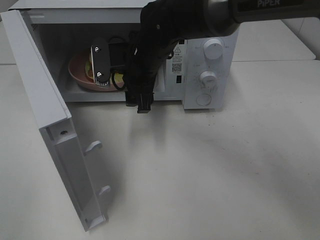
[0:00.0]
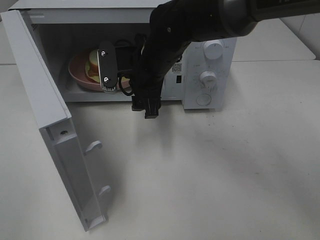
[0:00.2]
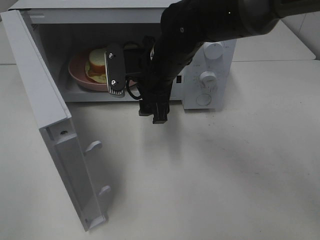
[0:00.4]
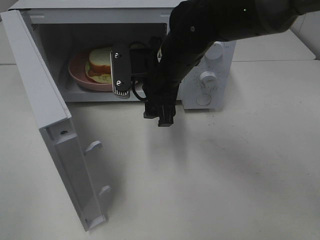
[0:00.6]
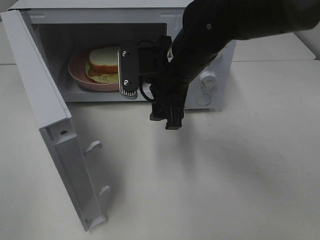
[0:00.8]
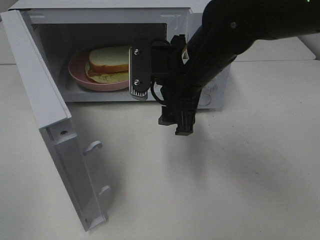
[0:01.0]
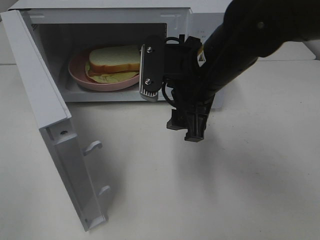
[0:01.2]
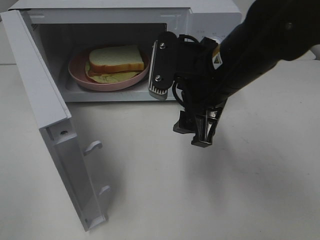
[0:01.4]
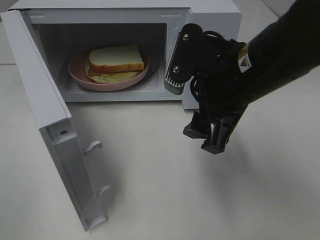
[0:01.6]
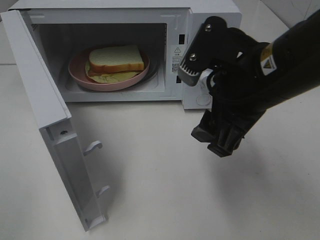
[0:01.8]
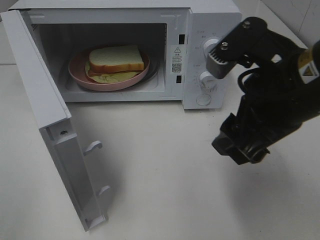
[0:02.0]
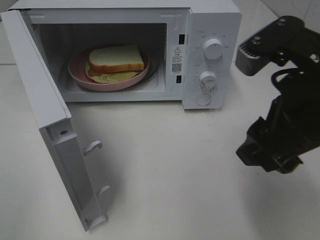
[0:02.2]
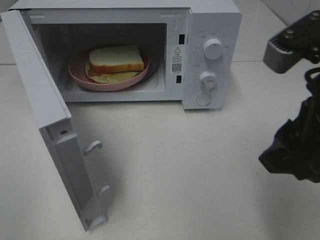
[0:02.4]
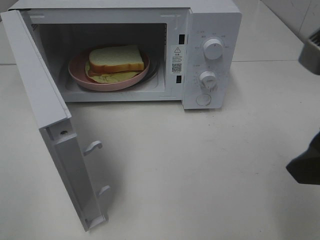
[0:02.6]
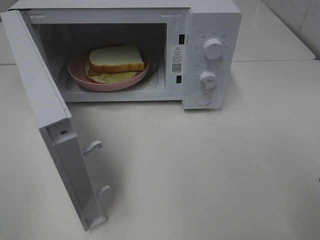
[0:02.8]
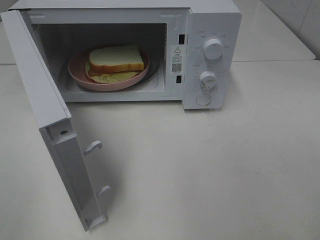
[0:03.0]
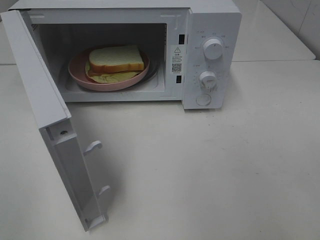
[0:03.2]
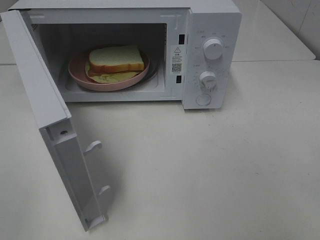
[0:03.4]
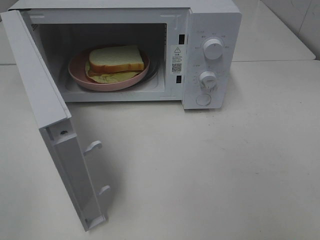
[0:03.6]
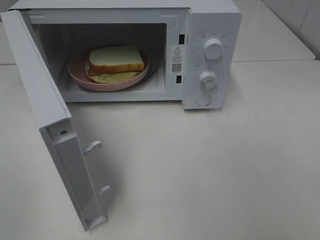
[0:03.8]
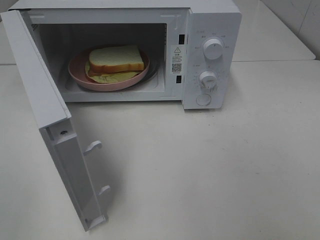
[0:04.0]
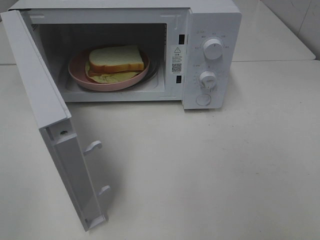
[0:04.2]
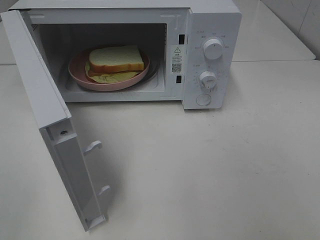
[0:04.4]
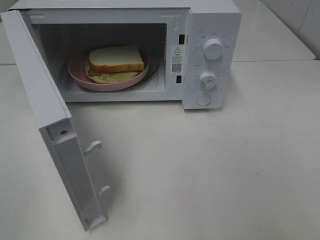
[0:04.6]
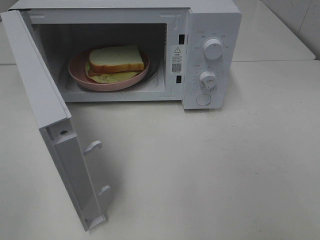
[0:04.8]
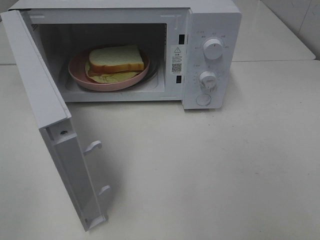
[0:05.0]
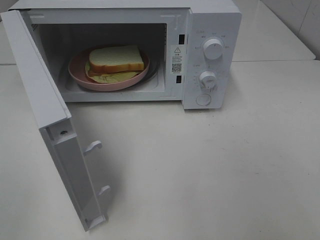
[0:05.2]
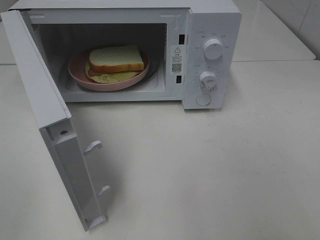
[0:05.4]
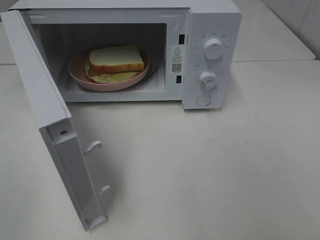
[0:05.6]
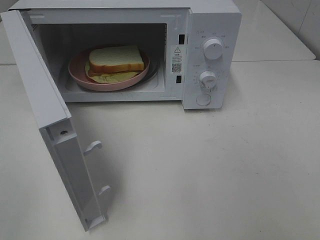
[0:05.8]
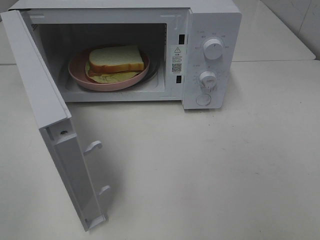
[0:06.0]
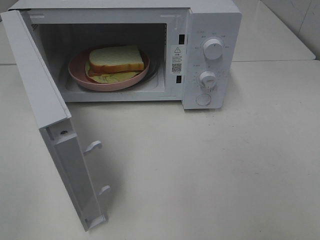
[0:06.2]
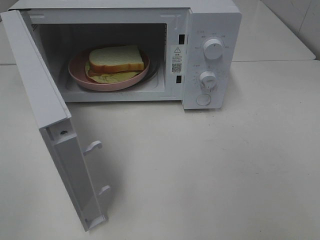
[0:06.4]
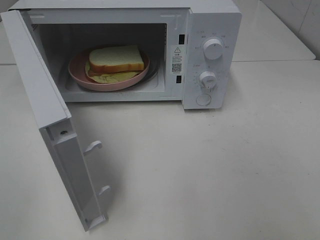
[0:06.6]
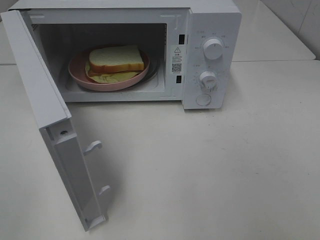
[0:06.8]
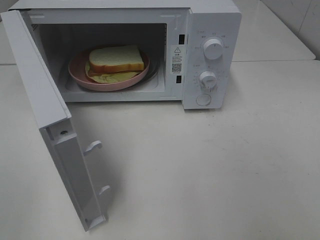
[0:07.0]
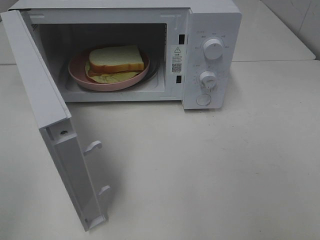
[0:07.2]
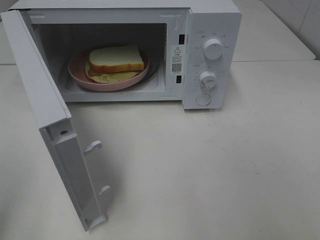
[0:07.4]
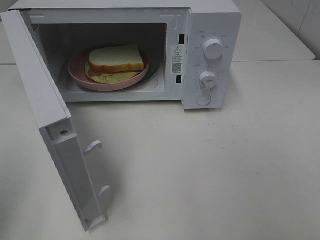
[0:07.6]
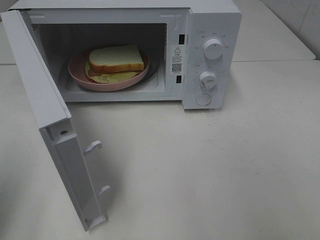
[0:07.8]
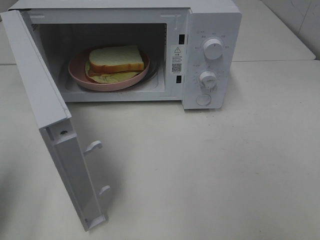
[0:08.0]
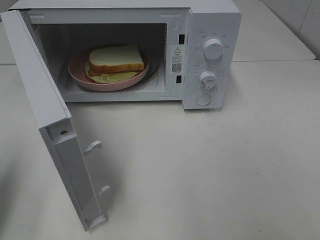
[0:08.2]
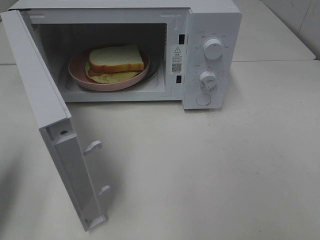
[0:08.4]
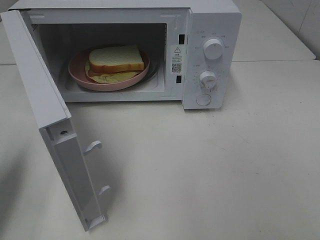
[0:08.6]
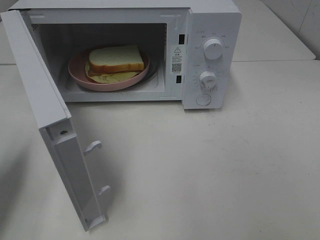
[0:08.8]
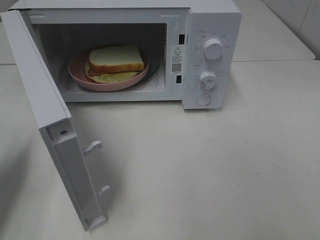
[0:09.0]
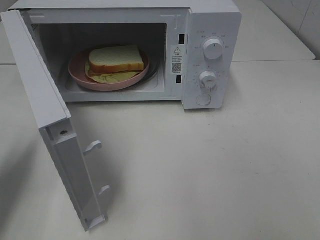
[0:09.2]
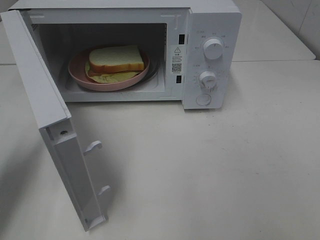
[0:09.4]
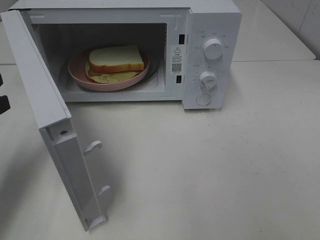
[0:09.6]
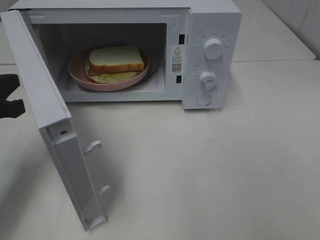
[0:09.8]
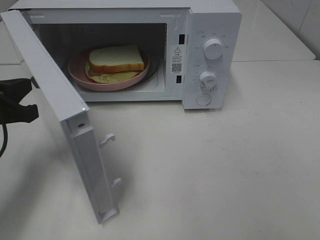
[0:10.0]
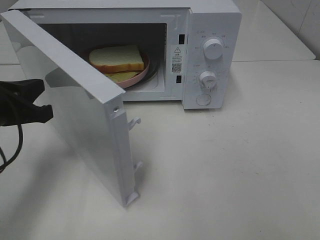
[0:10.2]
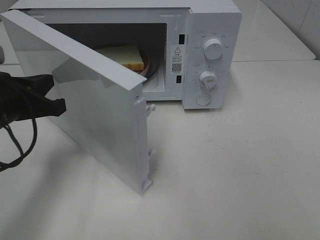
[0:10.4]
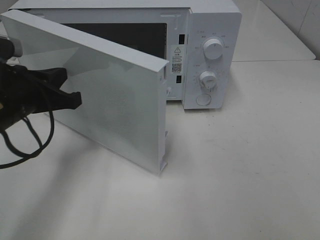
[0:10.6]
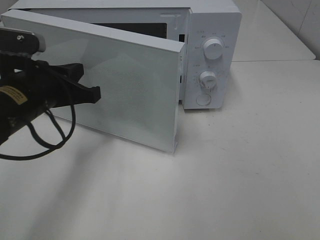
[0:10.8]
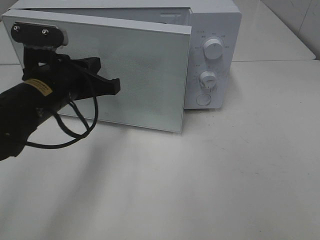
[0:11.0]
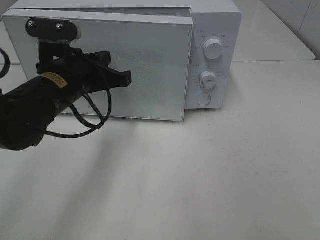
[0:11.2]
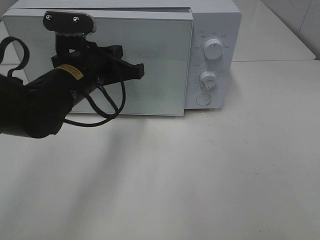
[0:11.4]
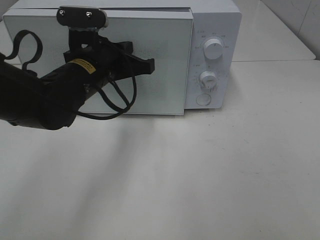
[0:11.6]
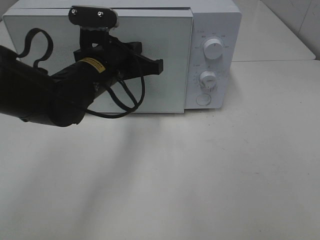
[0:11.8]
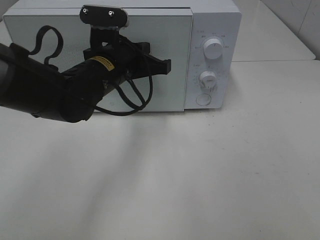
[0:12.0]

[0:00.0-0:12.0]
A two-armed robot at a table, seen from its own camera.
Task of the whole recording: Heat Sandwich.
0:00.0 to 0:01.6: The right gripper goes approximately 20 cm backward, to the right and upward.
0:01.6 to 0:03.0: The right gripper shifts about 20 cm backward, to the right and upward.
0:04.4 to 0:06.0: Neither gripper changes place.
0:07.6 to 0:09.0: The left gripper travels forward and downward by approximately 15 cm.
0:09.0 to 0:10.4: The left gripper travels to the right by some 10 cm.
0:10.4 to 0:12.0: The left gripper moves to the right and forward, some 15 cm.

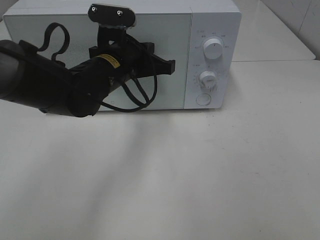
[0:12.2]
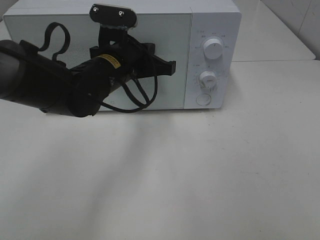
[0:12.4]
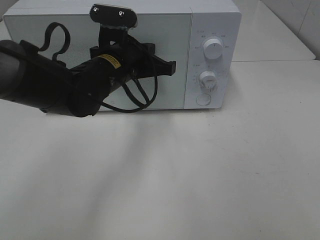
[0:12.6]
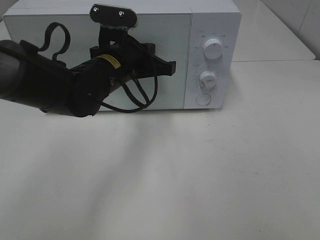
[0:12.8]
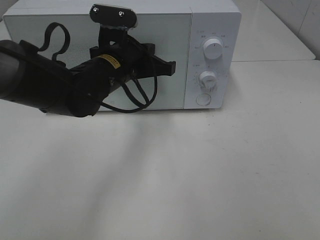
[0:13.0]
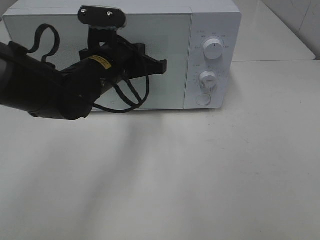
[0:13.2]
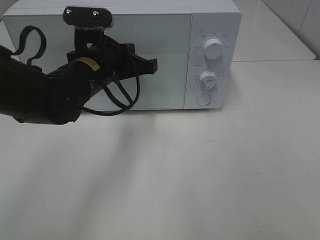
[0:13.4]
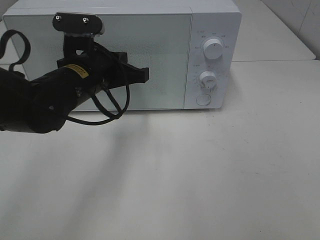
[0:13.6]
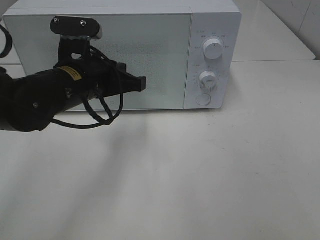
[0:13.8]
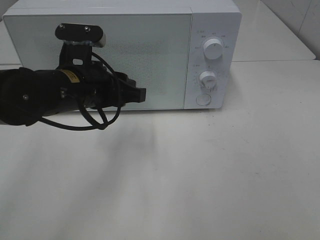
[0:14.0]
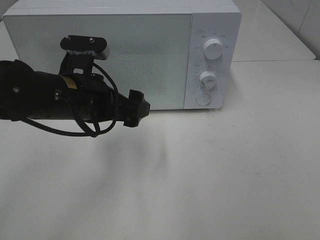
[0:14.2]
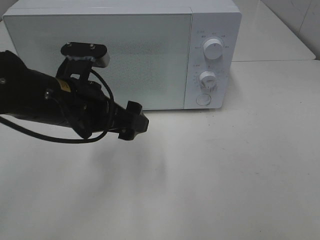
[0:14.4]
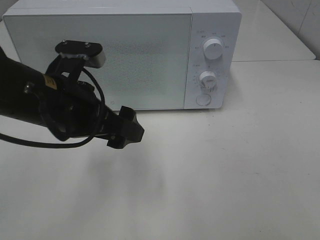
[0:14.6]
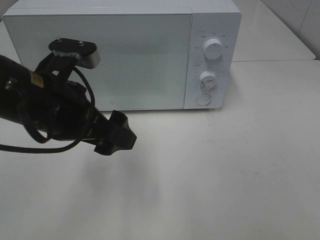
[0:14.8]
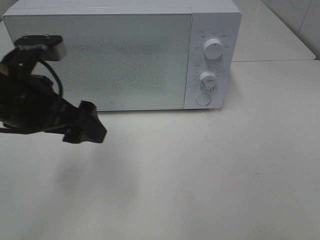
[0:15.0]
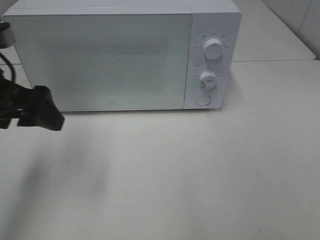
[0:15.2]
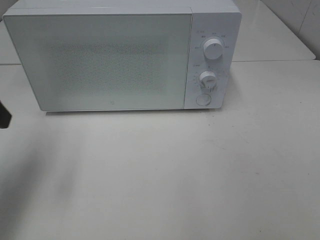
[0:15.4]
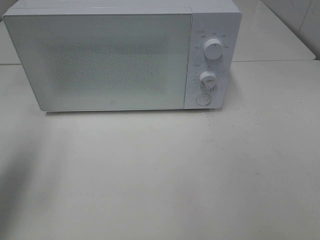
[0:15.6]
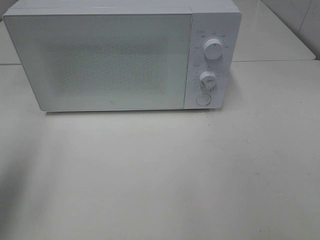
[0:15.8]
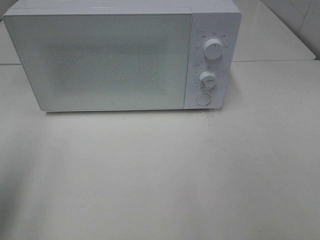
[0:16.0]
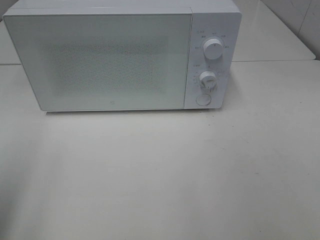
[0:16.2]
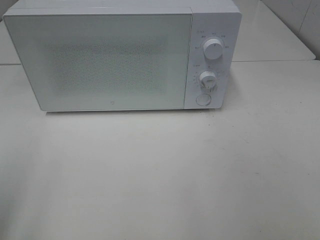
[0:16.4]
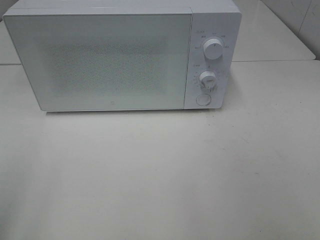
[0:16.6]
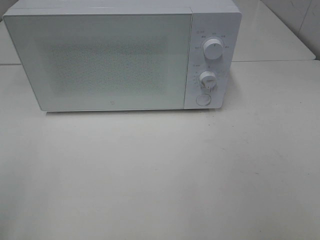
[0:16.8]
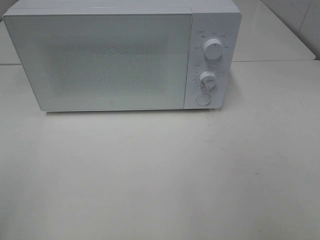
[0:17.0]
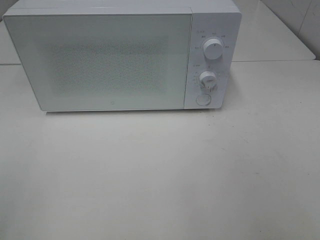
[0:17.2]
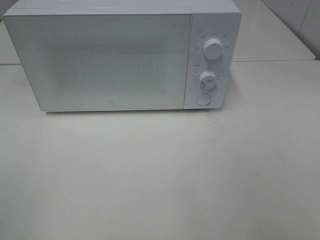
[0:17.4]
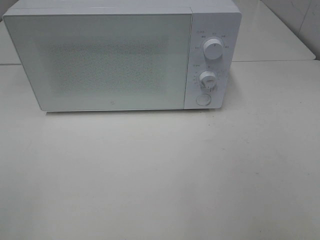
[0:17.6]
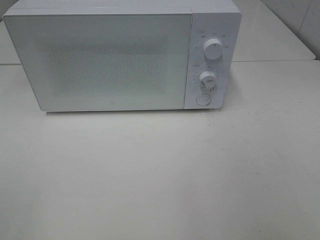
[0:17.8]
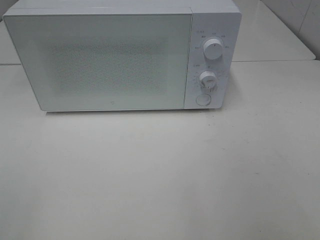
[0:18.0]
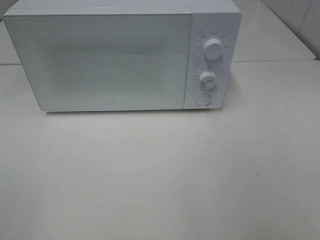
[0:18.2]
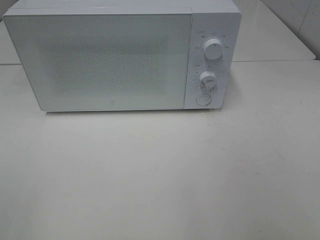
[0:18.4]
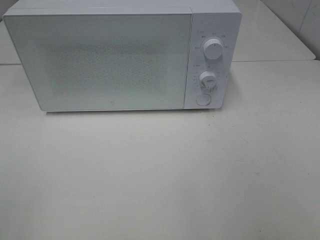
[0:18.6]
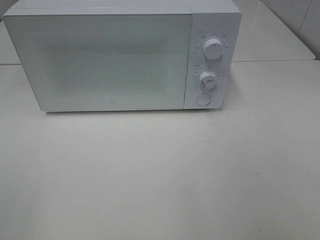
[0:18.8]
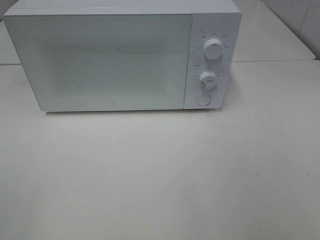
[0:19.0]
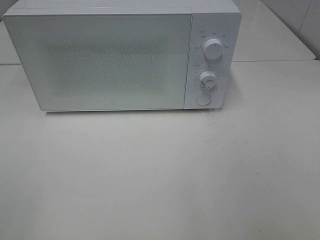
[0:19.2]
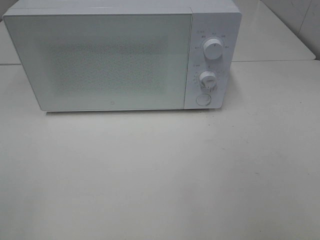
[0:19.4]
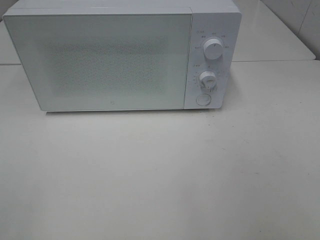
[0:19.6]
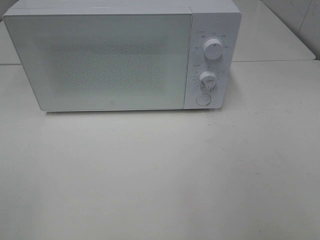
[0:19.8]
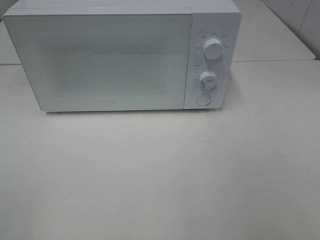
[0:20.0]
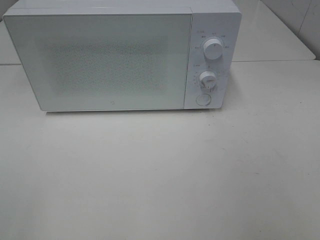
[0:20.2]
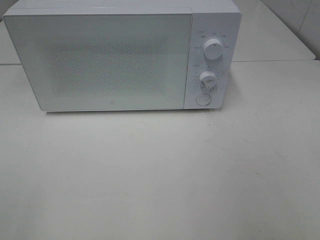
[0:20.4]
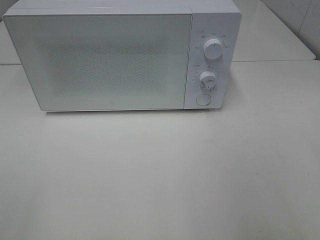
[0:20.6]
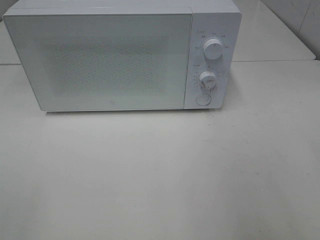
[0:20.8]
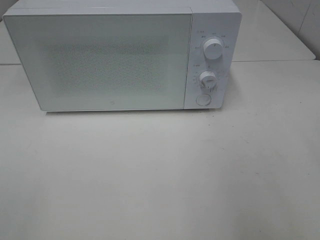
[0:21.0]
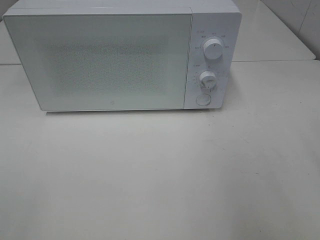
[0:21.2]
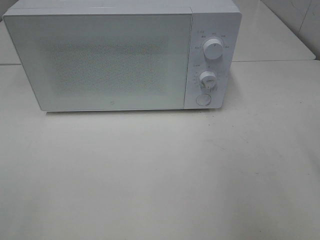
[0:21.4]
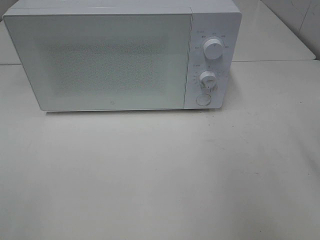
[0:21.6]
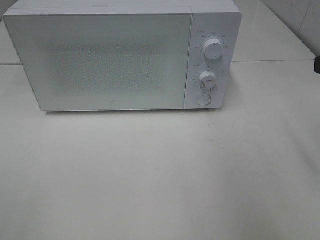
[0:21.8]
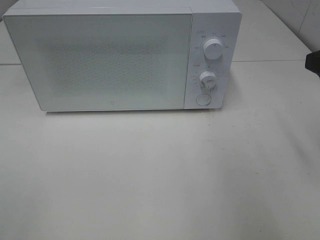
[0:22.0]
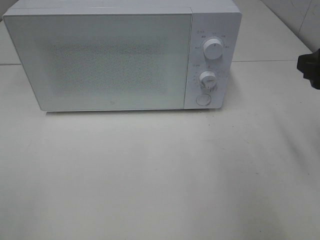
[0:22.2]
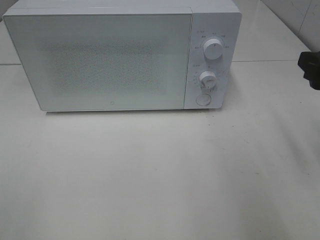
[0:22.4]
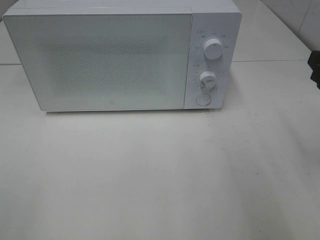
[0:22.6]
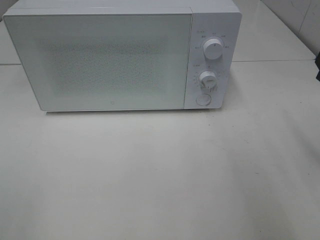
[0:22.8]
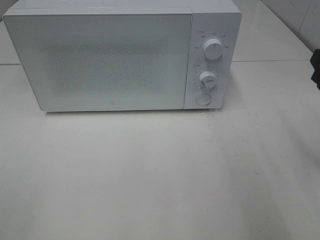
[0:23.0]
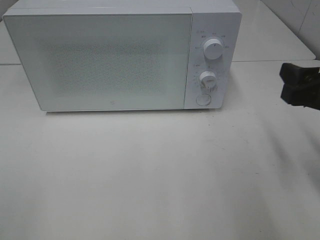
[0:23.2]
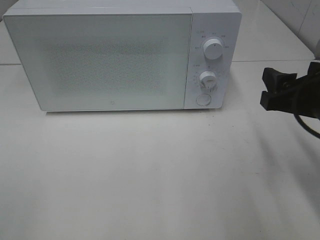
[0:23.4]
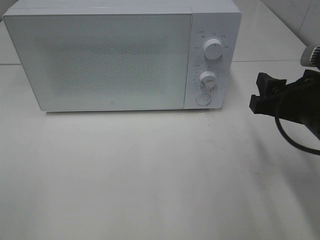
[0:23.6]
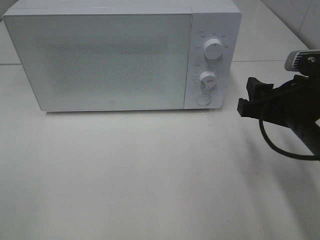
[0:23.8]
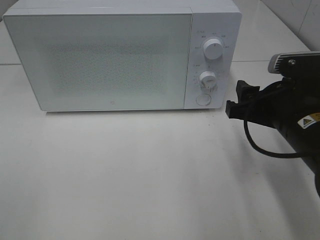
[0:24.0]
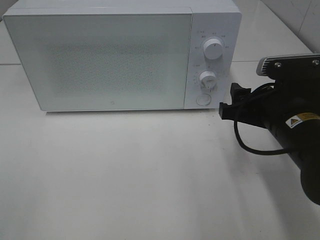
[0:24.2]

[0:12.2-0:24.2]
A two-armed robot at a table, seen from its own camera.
Task of the whole recording: Heat Sandwich.
0:12.2 to 0:13.8: The left gripper goes some 5 cm backward.
0:13.8 to 0:15.2: The left gripper moves to the left, upward and backward, about 15 cm, and opens.
0:15.2 to 0:16.6: The left gripper travels backward and to the left by approximately 20 cm.
0:18.2 to 0:19.8: Both grippers stay about where they are.
0:22.6 to 0:24.2: The right gripper is displaced to the left and downward by some 10 cm.
